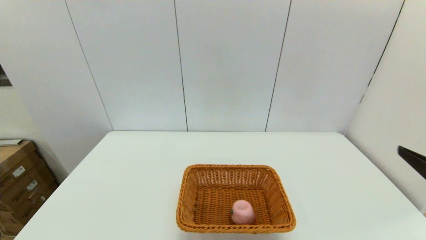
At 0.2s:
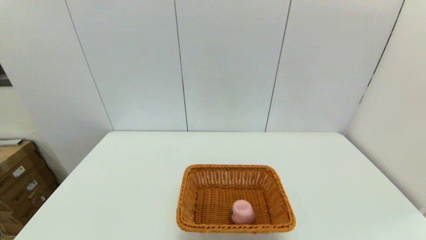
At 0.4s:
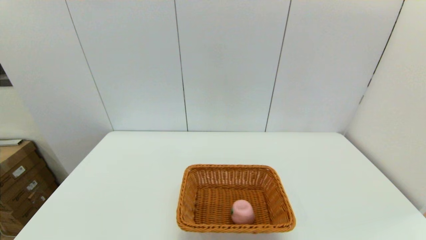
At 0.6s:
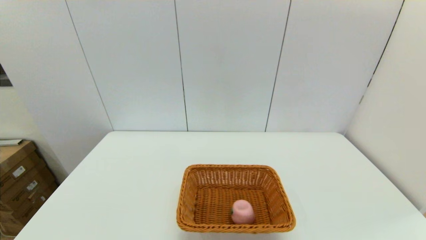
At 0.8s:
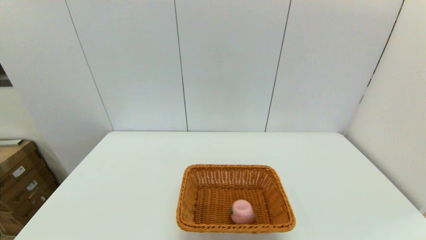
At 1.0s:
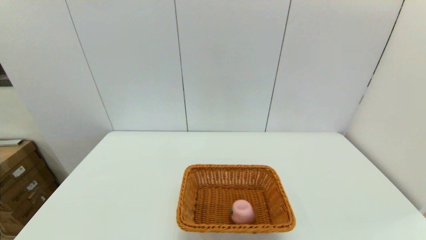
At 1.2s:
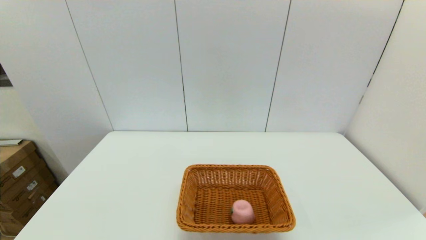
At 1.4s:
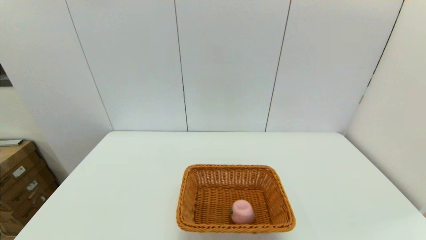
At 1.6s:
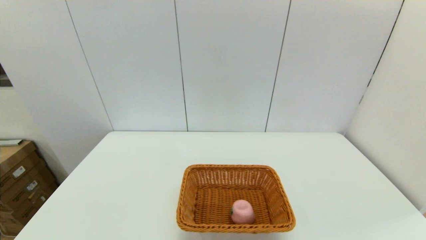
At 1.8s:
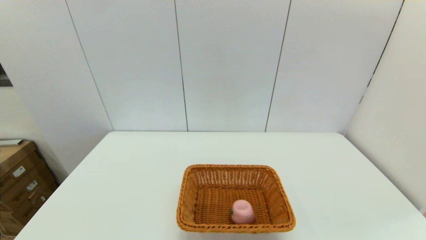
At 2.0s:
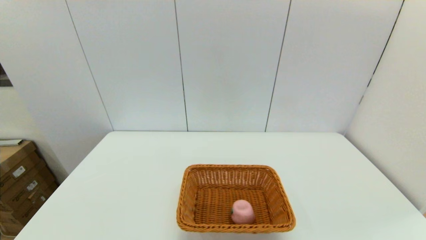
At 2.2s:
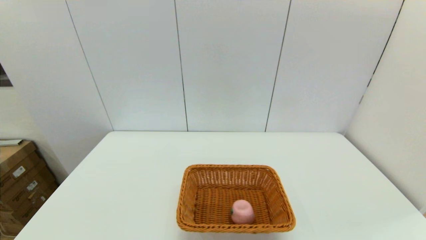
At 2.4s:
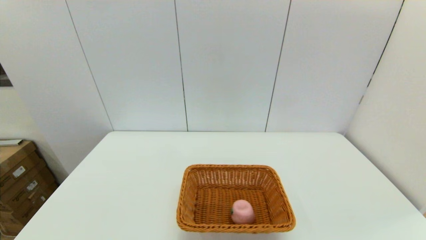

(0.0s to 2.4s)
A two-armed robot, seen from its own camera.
1.2s - 2.4s: Neither gripper changes place.
